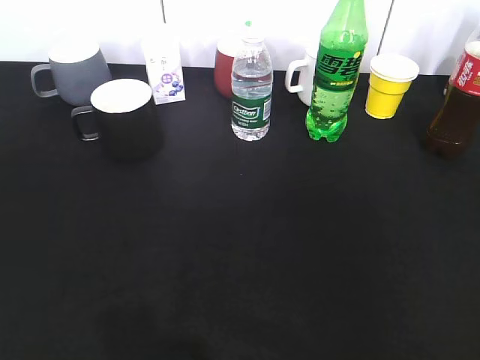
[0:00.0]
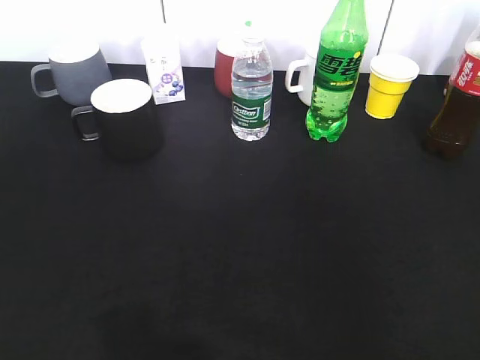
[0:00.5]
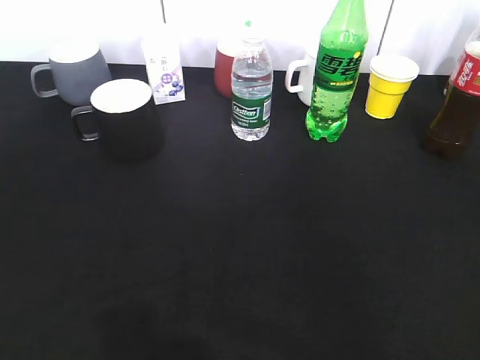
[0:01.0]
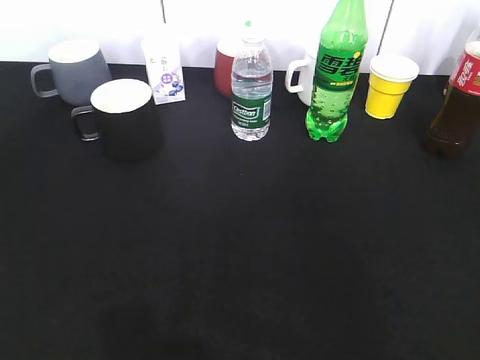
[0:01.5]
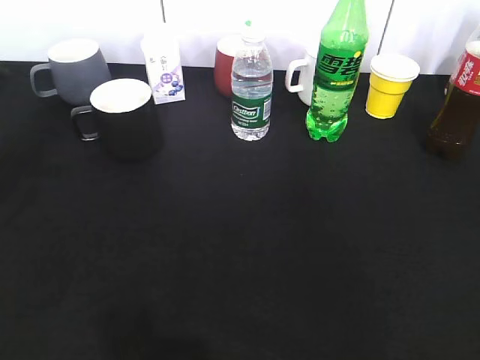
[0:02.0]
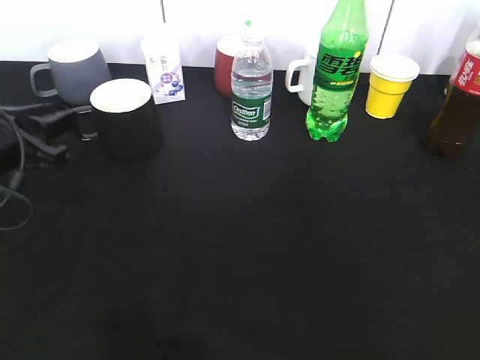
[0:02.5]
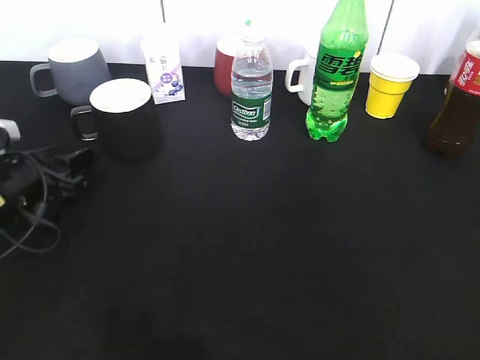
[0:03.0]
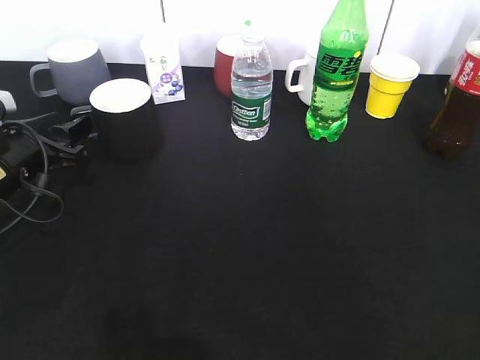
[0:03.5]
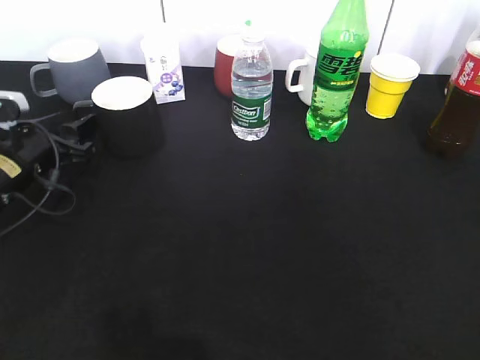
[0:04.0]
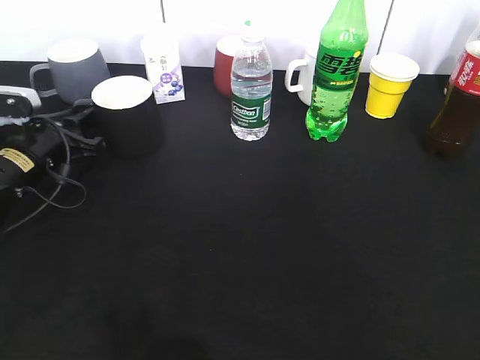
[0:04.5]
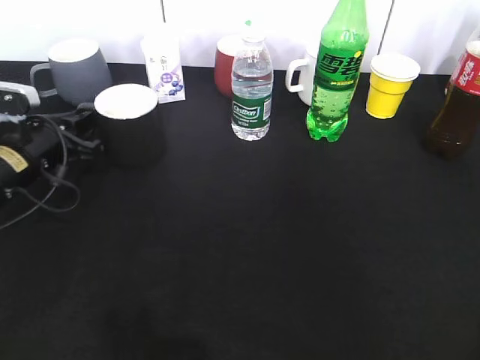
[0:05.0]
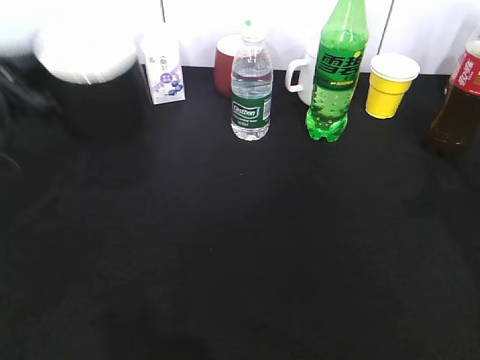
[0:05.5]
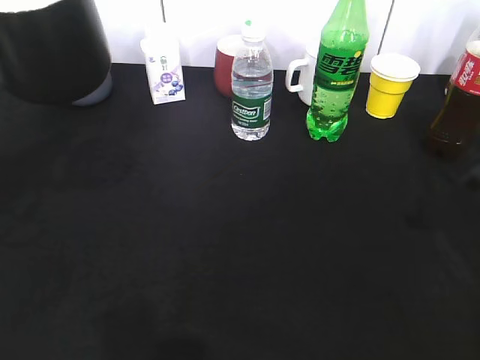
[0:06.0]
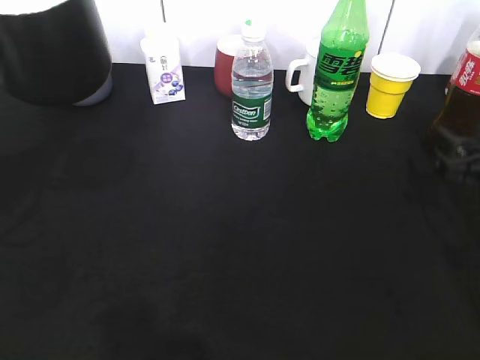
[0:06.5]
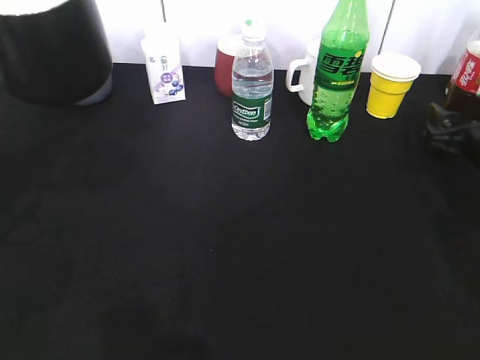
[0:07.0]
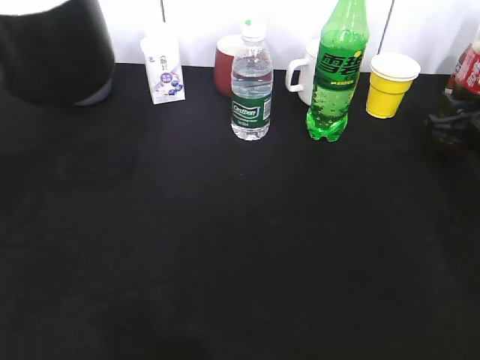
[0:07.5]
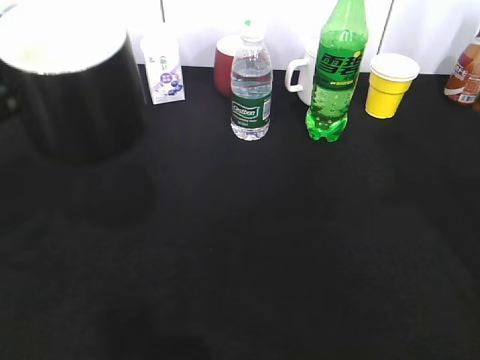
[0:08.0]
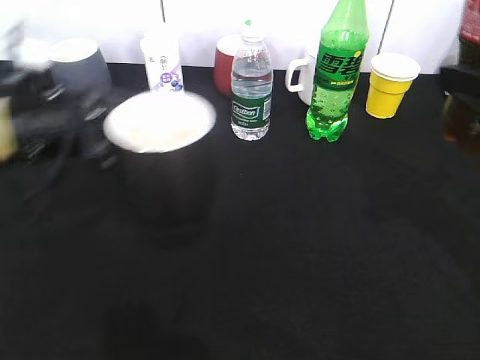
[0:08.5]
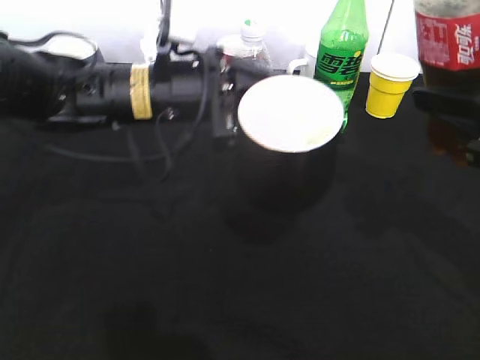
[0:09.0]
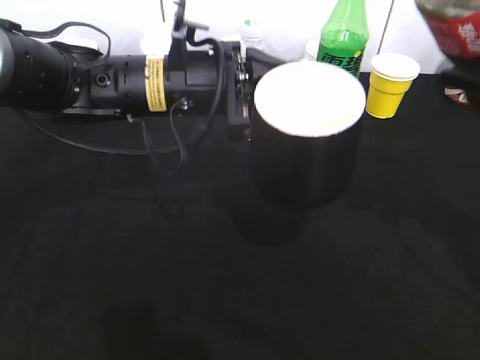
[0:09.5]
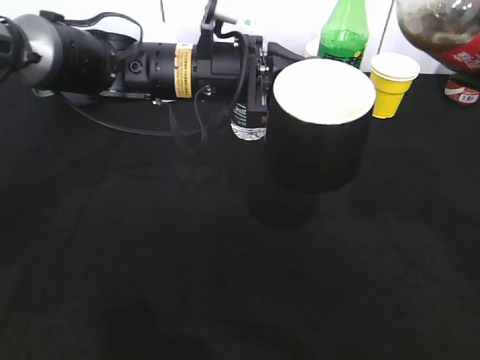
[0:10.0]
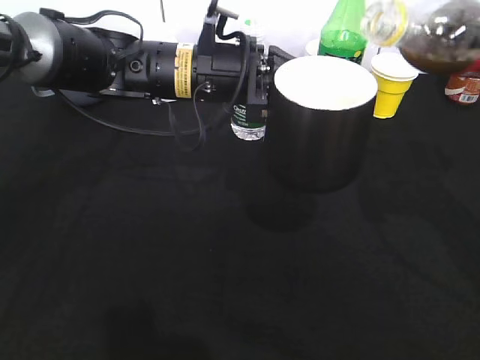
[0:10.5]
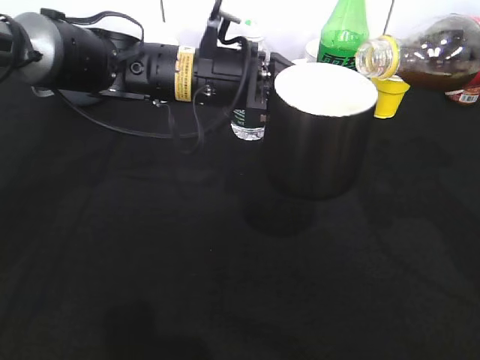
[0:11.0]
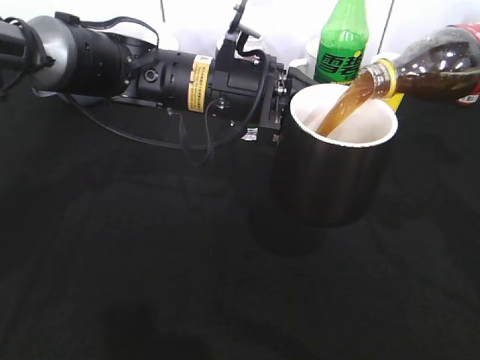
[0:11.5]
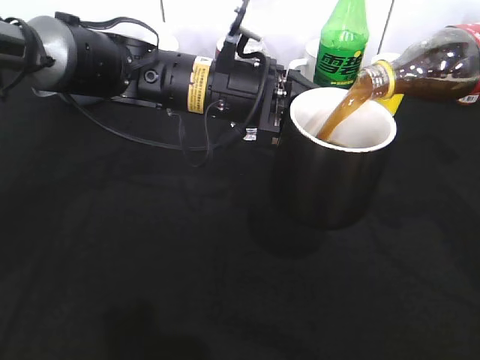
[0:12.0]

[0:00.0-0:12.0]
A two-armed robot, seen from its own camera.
Step, 0:00.0 to 0:04.5: Grasp the black cup with left gripper.
Step, 0:05.0 to 0:05.5: Lift the black cup with left gripper.
Step, 0:06.0 to 0:07.5: Grasp the bottle with cola with right gripper.
0:00.0 to 0:02.0: The left gripper goes approximately 25 cm forward, and closes.
0:02.0 to 0:04.0: The left gripper heads downward and forward, covering roughly 15 cm, and opens its fingers.
0:04.0 to 0:06.0: The left gripper is displaced upward and backward by roughly 20 cm, and closes.
0:06.0 to 0:08.0: The right gripper travels upward by roughly 10 cm, and opens, then closes once more.
0:08.0 to 0:10.0: The left gripper travels to the right and forward by about 25 cm.

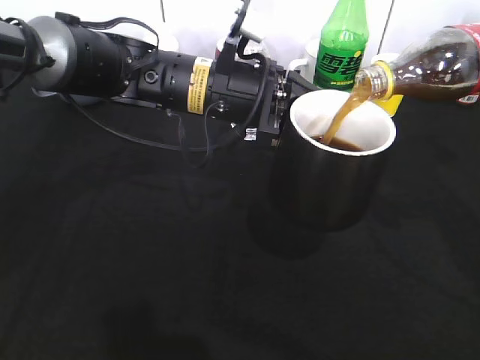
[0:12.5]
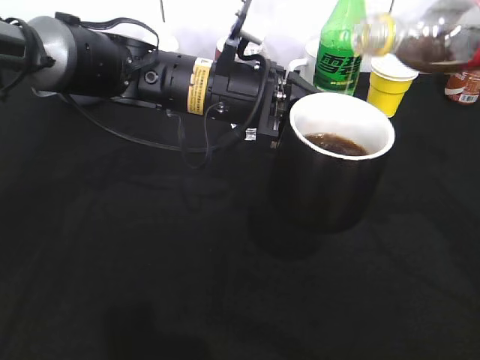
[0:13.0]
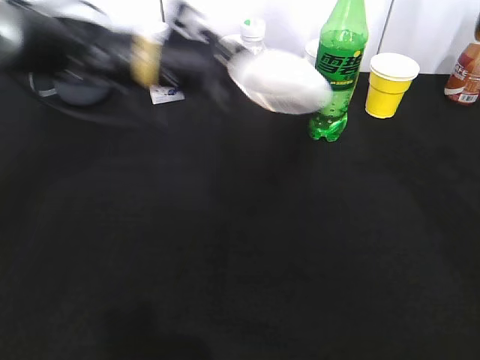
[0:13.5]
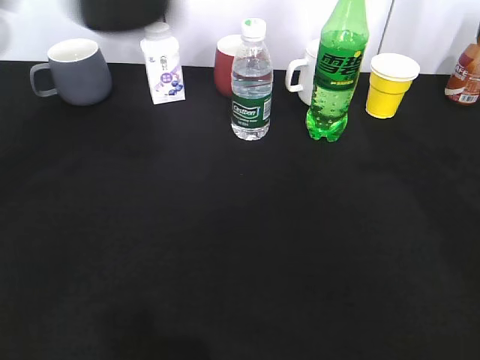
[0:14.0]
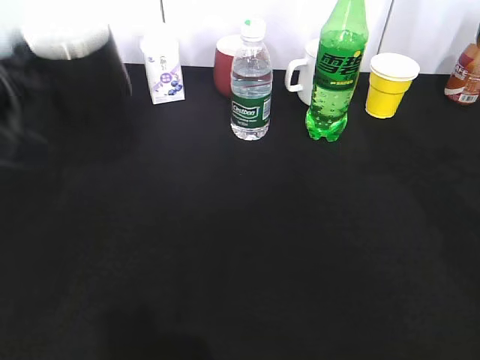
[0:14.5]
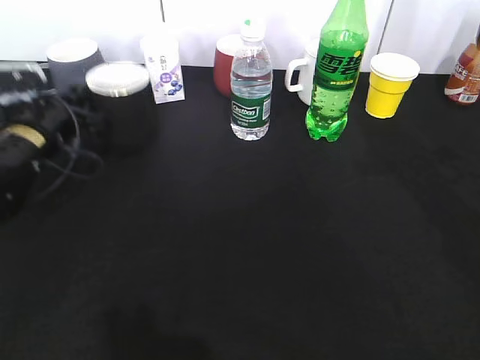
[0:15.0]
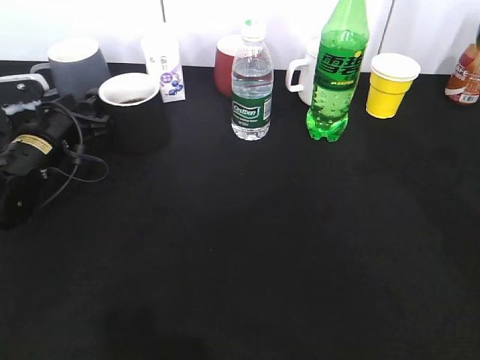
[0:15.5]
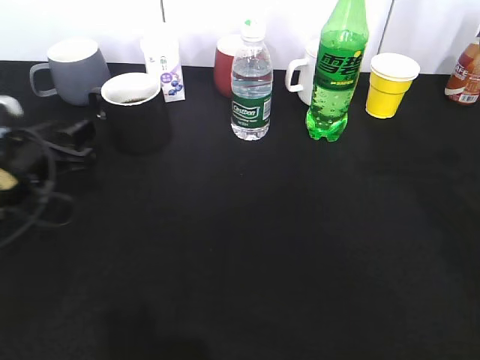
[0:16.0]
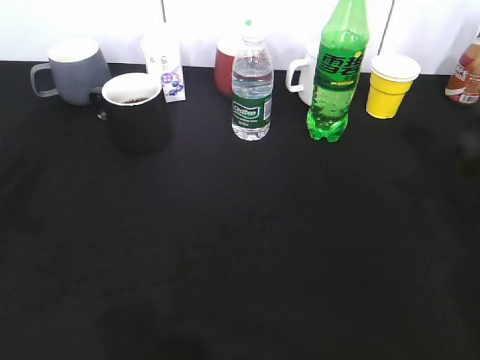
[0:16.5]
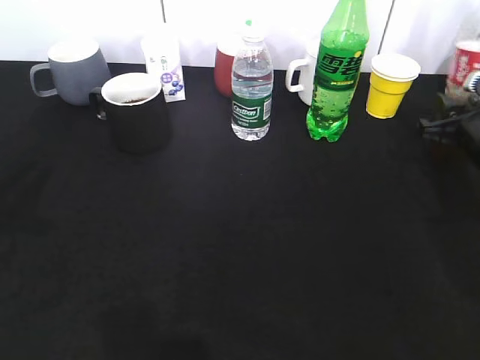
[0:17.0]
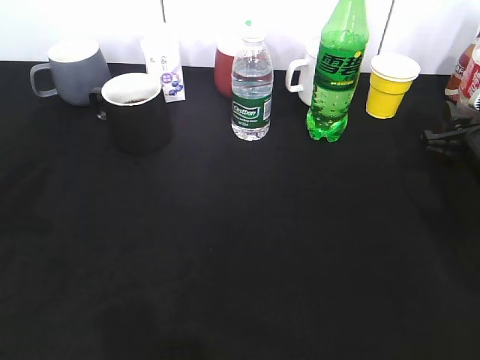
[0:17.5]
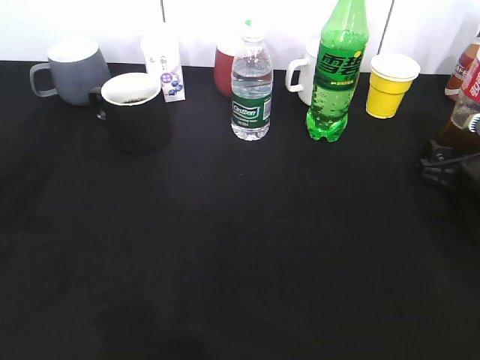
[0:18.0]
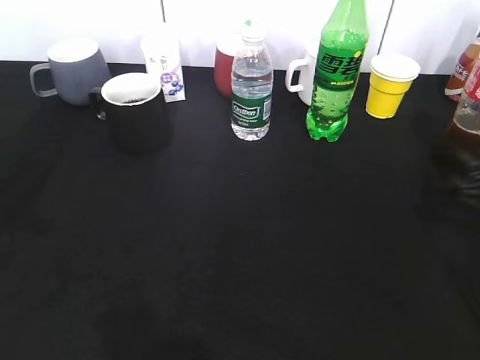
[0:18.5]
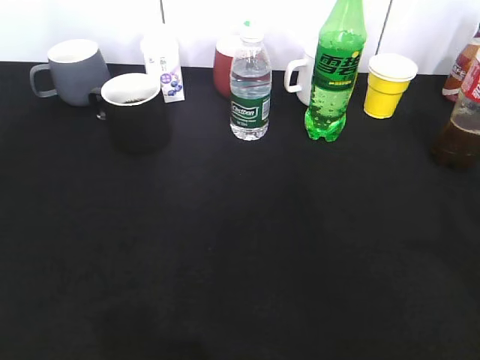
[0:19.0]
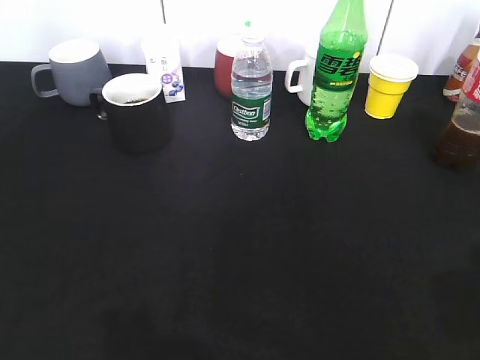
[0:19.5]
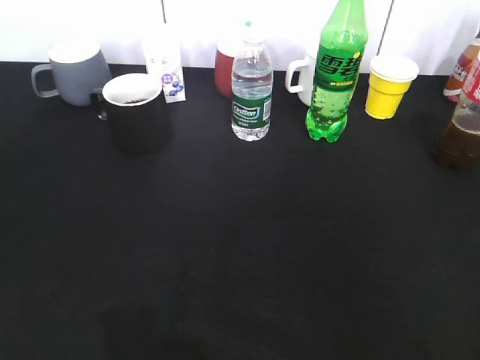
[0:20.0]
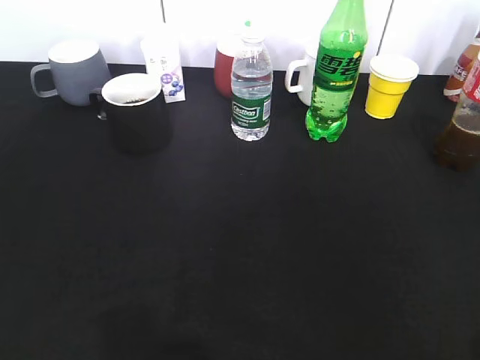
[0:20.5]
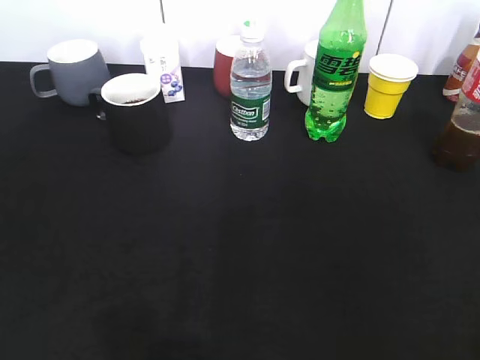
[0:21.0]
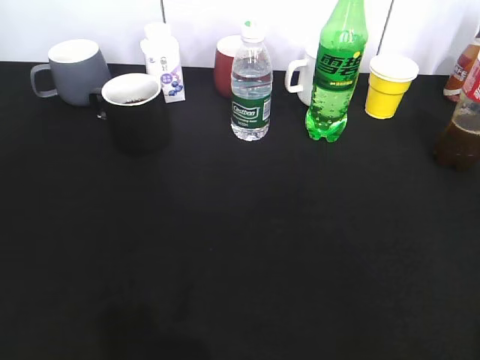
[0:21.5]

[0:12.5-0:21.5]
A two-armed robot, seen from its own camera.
Step, 0:13.5 to 0:16.0: Place the black cup on the table with left gripper.
Step, 0:16.5 to 0:18.5: Place the cola bottle on the table with right gripper.
0:12.5 to 0:14.5: The left gripper moves to the left, approximately 25 cm.
0:14.5 to 0:17.0: The left gripper moves backward and upward, roughly 15 cm, and opens up; the right gripper shifts some 25 cm downward and forward.
0:17.0 to 0:19.5: The right gripper shifts about 40 cm backward and upward, and closes. Meanwhile the left gripper travels backward and upward by roughly 20 cm, and closes.
0:19.5 to 0:21.5: The left gripper travels downward by roughly 15 cm, and opens up.
